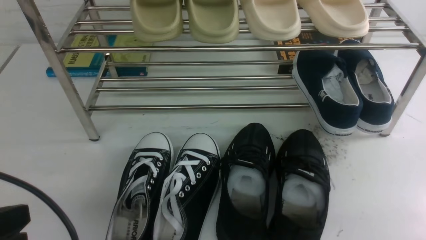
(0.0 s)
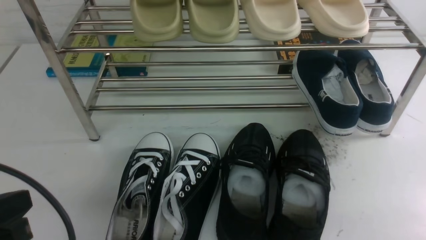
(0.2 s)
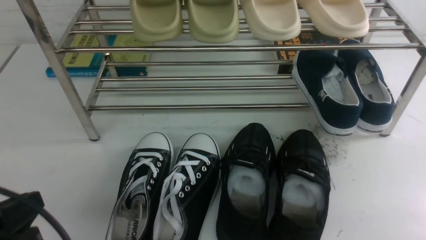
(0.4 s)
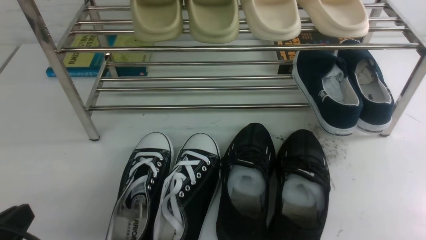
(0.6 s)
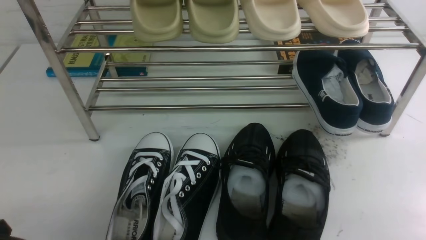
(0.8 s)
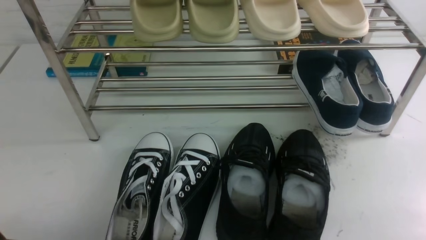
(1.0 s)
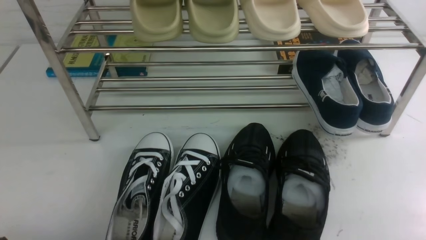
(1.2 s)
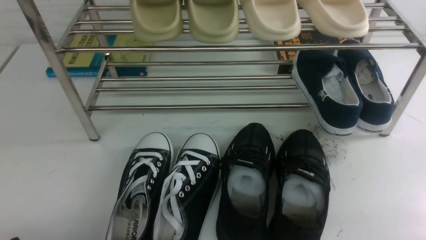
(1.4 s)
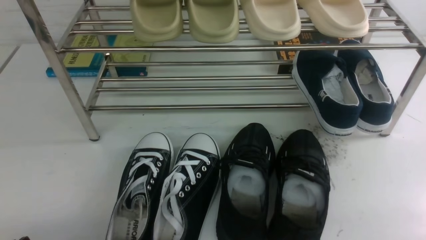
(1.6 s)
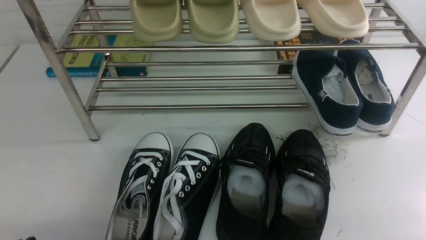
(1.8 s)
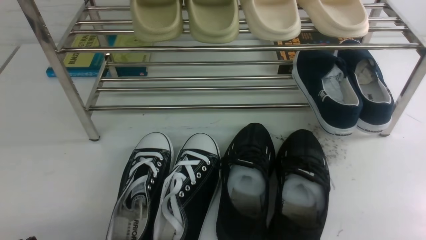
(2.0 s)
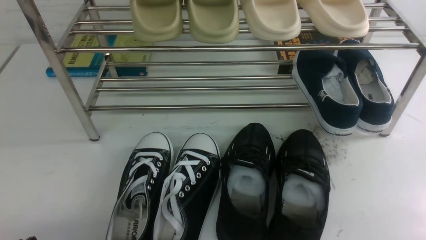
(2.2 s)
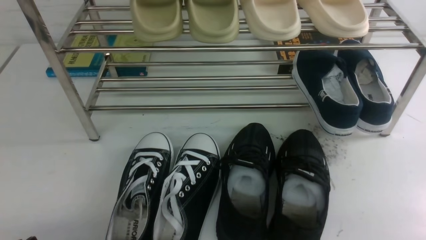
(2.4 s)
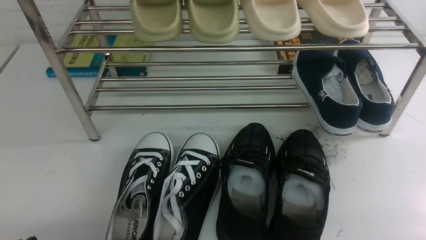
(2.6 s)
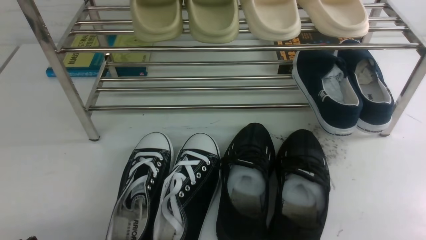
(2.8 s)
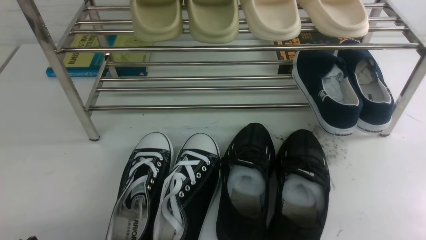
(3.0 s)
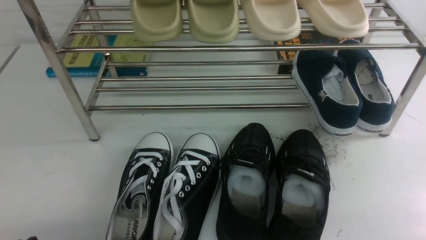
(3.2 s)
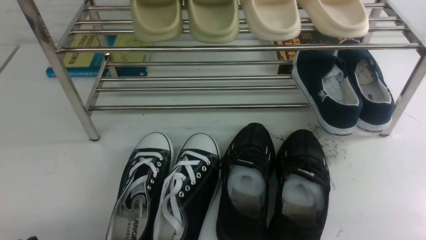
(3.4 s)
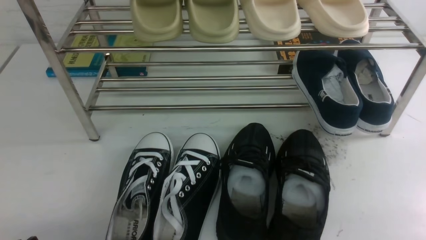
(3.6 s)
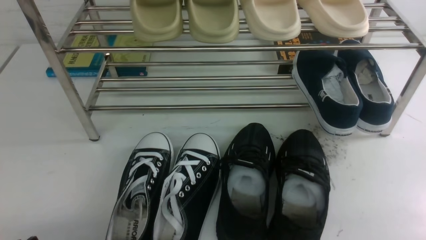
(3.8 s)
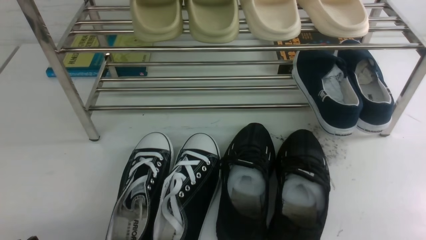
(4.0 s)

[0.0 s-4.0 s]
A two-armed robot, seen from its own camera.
0.0 to 1.4 s: The left gripper travels downward by some 15 cm.
2.6 to 4.0 s: The two grippers keep their place.
